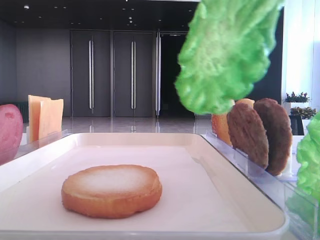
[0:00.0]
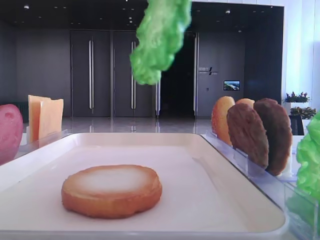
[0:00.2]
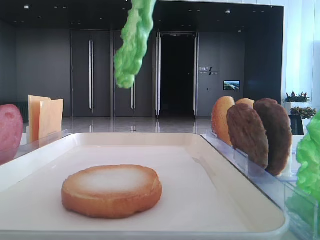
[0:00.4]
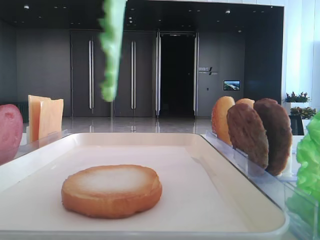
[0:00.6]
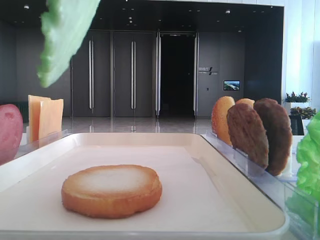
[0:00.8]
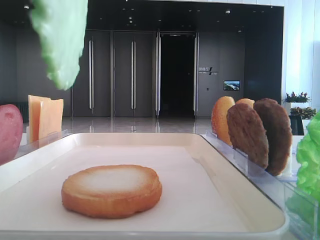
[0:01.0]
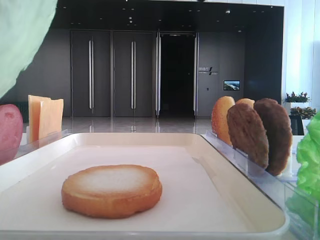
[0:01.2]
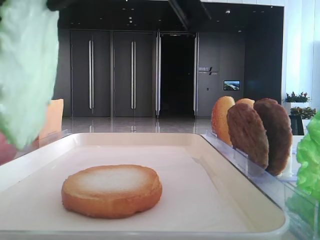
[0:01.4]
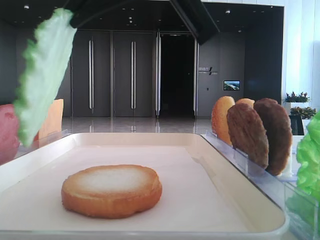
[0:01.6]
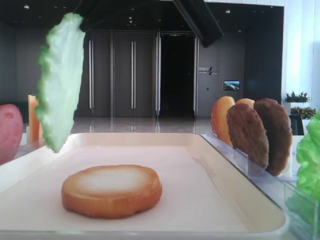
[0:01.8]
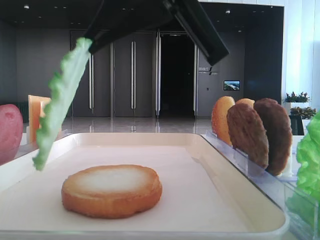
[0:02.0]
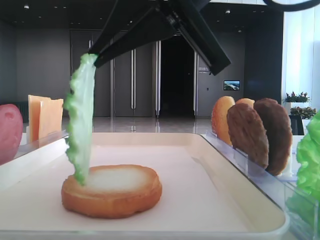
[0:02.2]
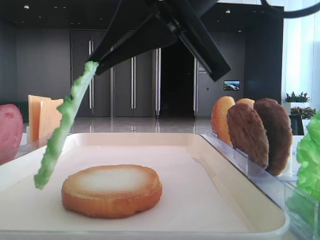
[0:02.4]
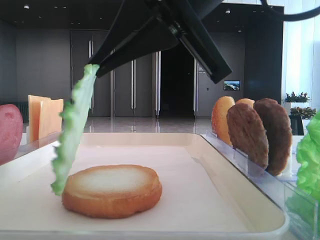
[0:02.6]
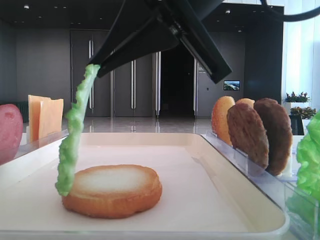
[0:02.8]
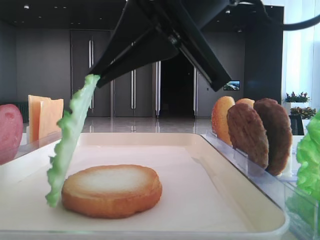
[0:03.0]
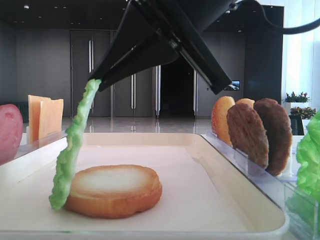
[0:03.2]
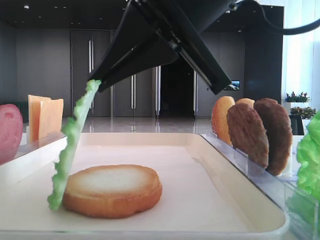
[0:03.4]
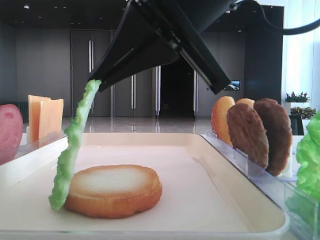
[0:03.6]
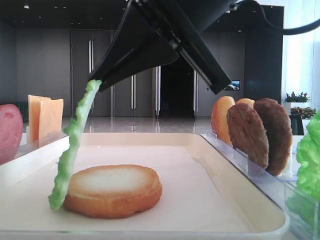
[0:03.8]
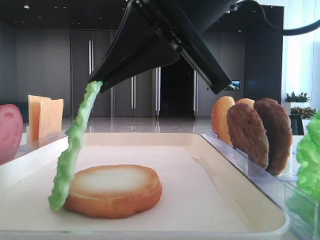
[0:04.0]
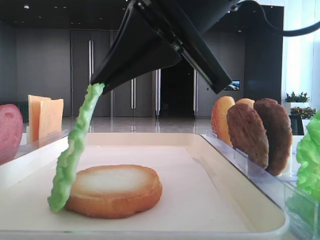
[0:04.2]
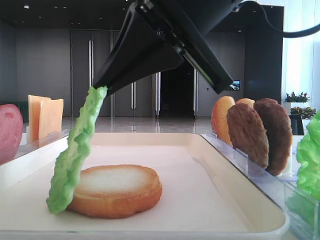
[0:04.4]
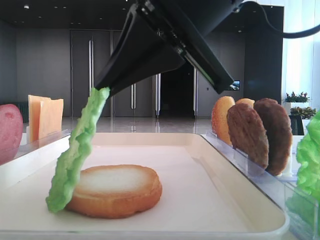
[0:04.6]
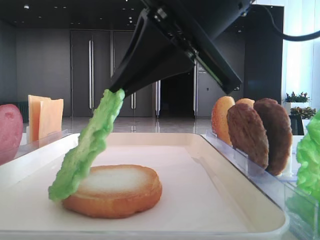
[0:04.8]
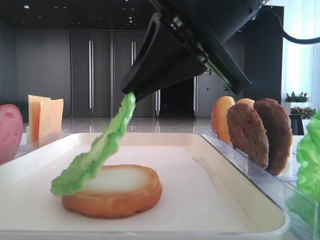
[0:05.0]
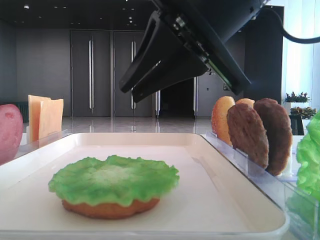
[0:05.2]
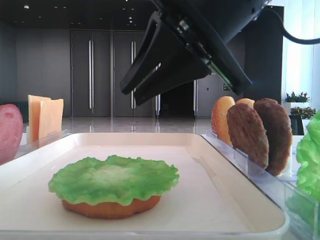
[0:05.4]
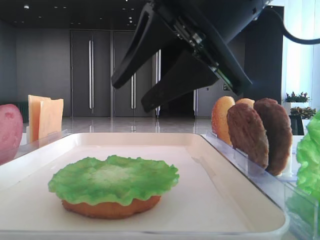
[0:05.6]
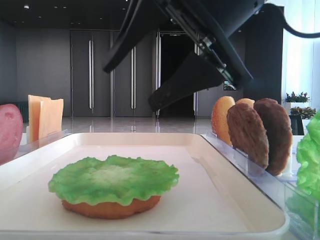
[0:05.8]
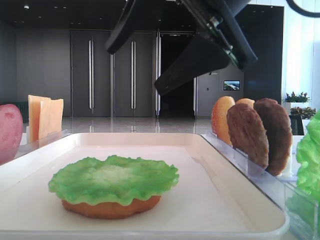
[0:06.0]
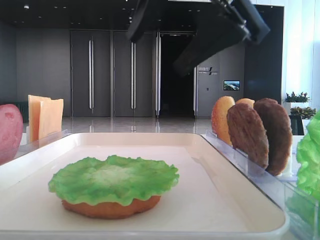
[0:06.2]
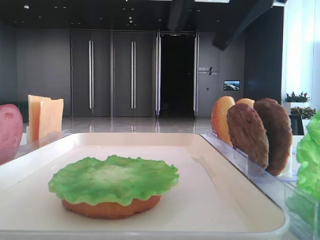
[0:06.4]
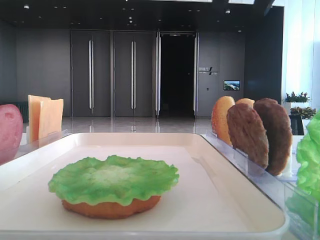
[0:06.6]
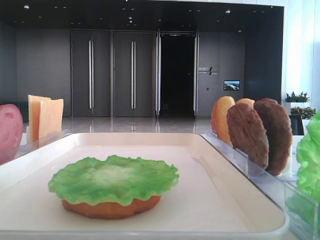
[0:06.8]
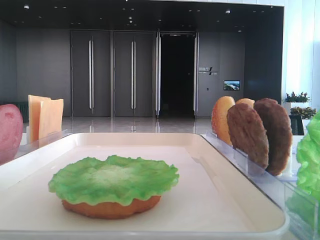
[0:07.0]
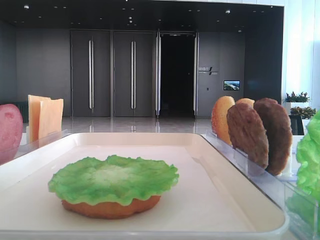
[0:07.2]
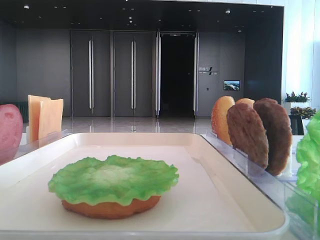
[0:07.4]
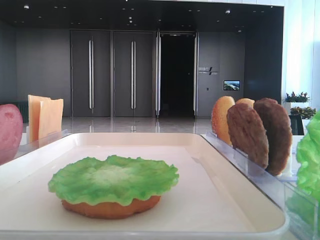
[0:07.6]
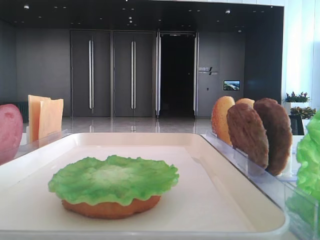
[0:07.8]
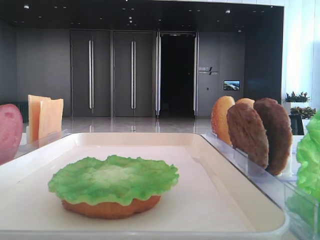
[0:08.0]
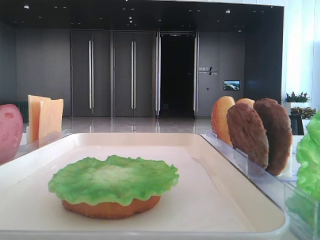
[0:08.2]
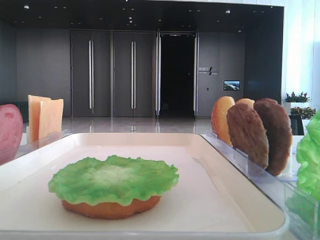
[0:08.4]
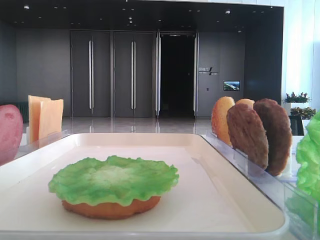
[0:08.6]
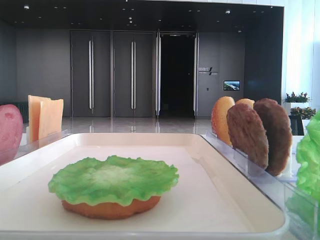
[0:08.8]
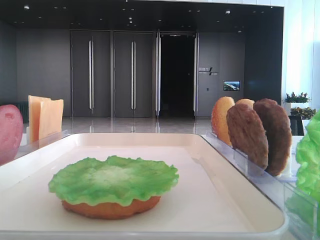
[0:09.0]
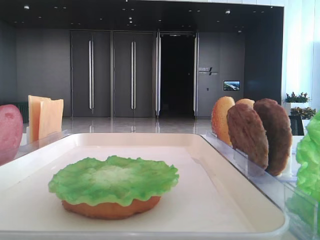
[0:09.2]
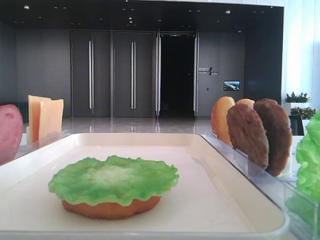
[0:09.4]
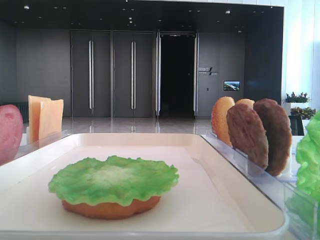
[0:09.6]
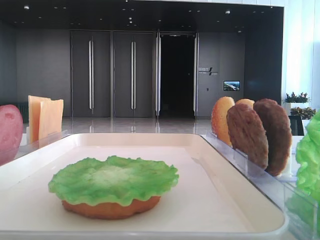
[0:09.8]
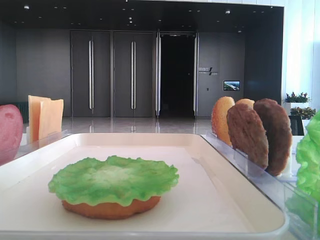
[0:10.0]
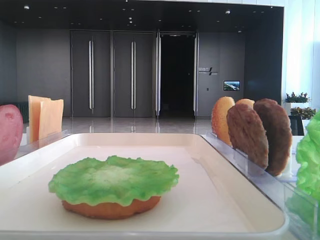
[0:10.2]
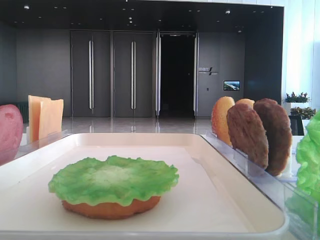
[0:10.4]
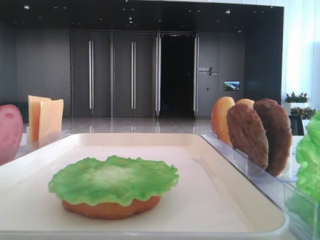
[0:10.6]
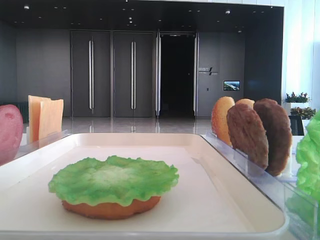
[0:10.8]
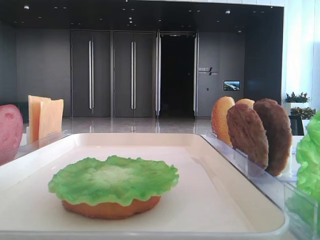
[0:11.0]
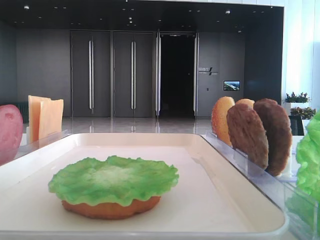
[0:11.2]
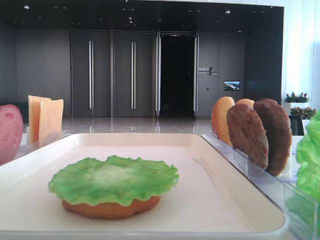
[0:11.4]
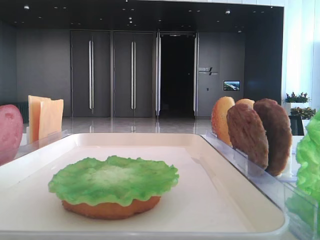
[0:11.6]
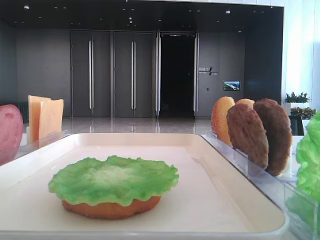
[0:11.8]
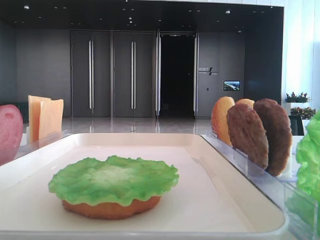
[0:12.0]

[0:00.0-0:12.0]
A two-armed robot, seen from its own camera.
Step, 0:00.0 to 0:05.0: Place the lettuce leaf on the bottom bread with the right hand.
0:00.0 to 0:01.6: The right gripper shifts about 10 cm downward and to the left.
0:01.6 to 0:04.4: The grippers make only small movements.
0:04.4 to 0:06.0: The right gripper opens up.
0:06.0 to 0:07.6: The right gripper is displaced to the right and upward by some 30 cm.
0:07.6 to 0:09.0: The right gripper heads backward, covering approximately 30 cm.
0:10.4 to 0:12.0: The two grippers keep their place.

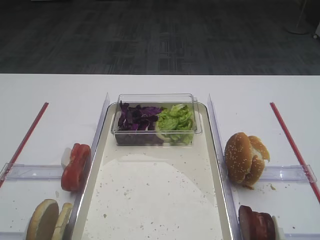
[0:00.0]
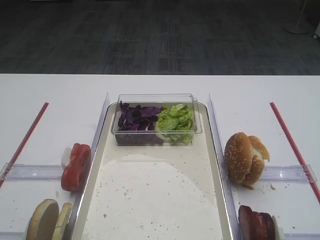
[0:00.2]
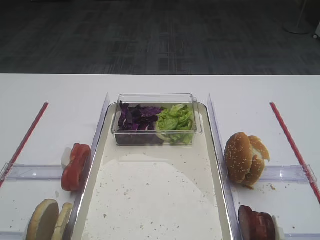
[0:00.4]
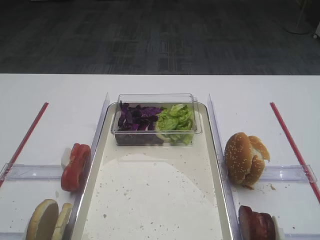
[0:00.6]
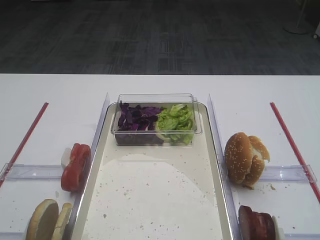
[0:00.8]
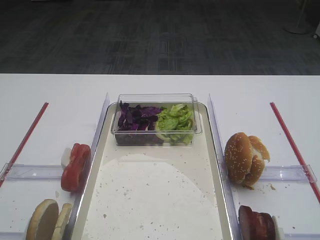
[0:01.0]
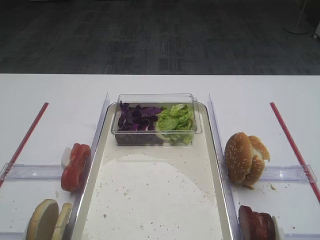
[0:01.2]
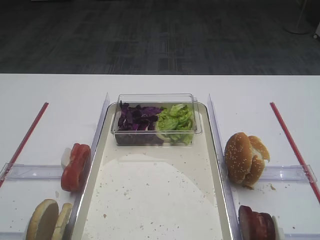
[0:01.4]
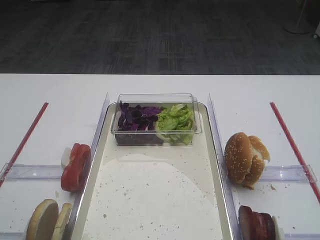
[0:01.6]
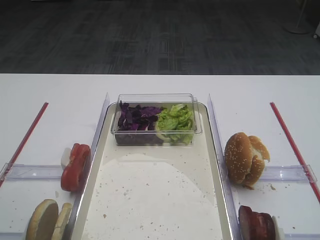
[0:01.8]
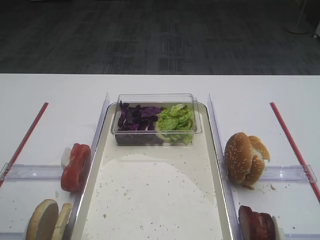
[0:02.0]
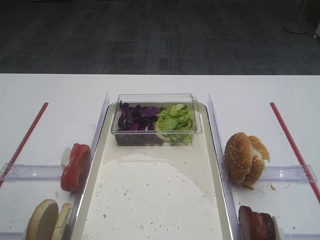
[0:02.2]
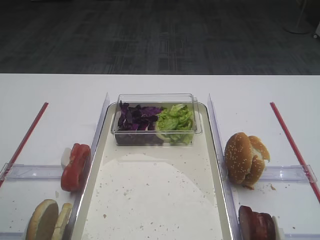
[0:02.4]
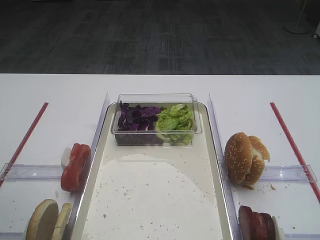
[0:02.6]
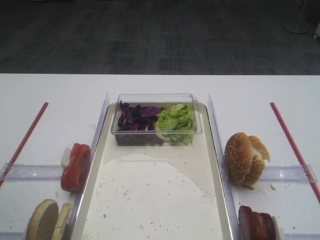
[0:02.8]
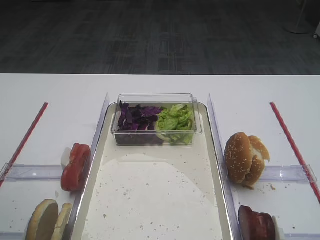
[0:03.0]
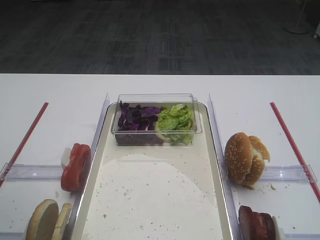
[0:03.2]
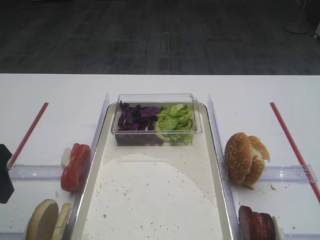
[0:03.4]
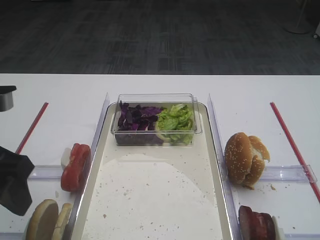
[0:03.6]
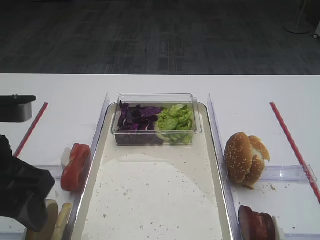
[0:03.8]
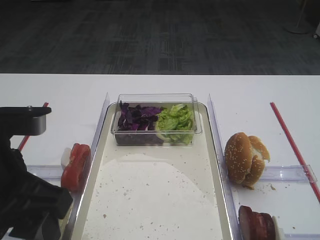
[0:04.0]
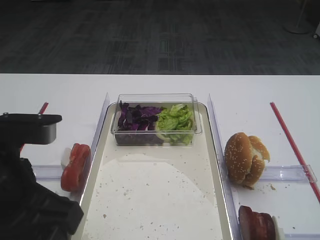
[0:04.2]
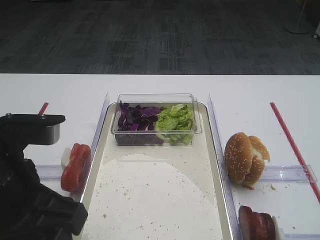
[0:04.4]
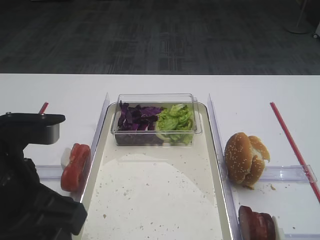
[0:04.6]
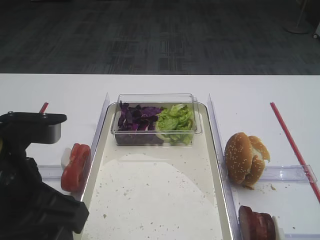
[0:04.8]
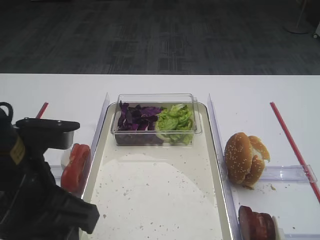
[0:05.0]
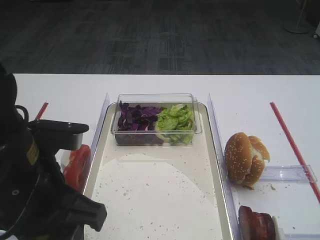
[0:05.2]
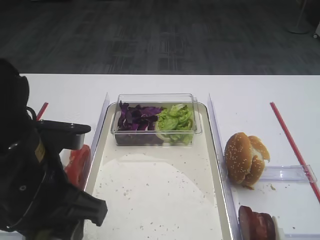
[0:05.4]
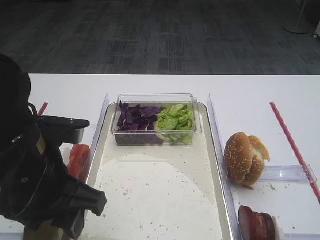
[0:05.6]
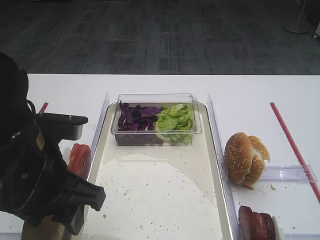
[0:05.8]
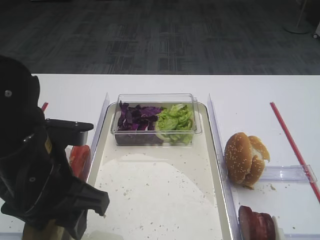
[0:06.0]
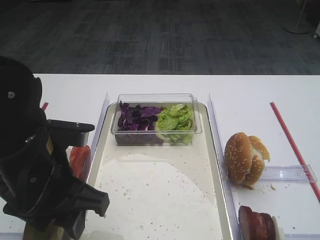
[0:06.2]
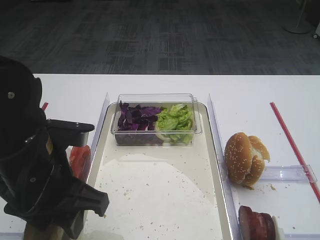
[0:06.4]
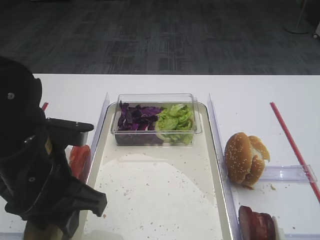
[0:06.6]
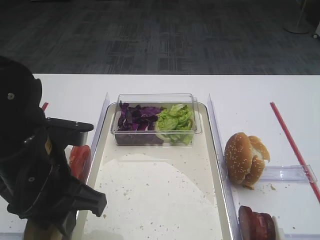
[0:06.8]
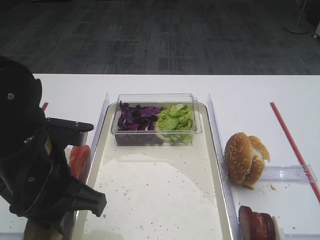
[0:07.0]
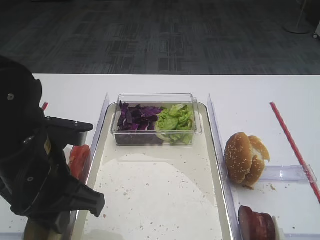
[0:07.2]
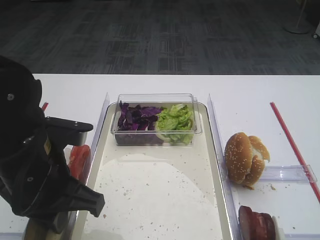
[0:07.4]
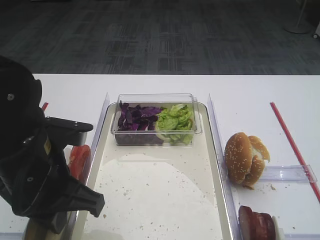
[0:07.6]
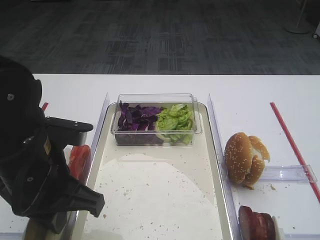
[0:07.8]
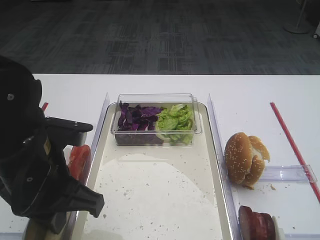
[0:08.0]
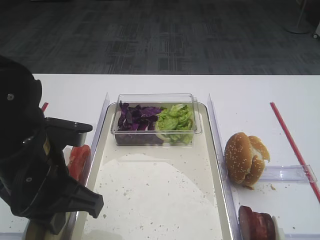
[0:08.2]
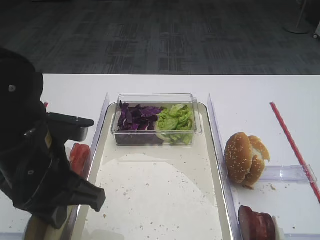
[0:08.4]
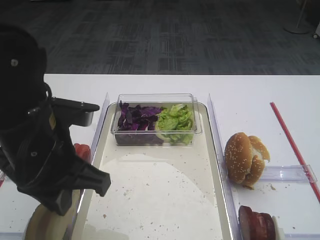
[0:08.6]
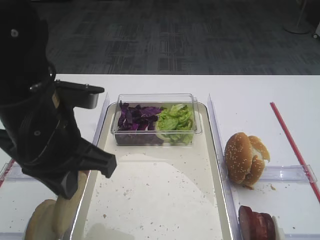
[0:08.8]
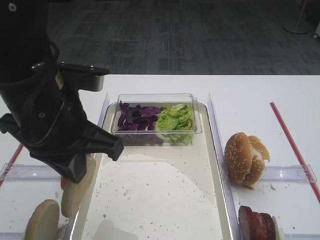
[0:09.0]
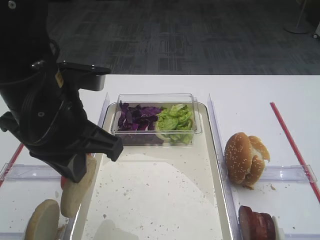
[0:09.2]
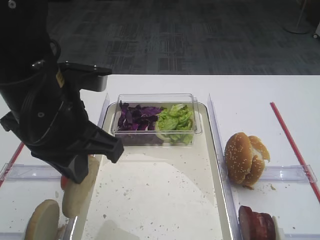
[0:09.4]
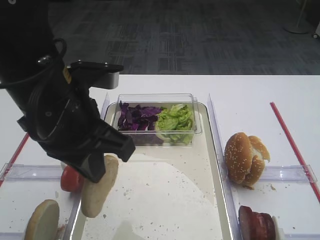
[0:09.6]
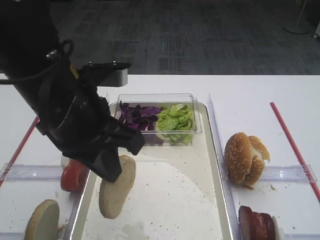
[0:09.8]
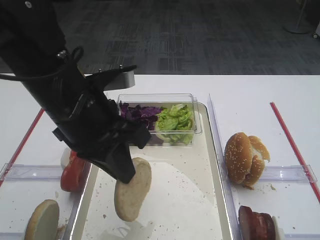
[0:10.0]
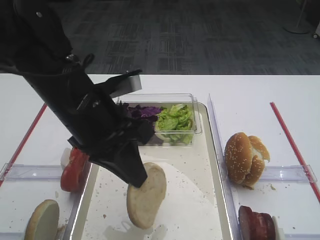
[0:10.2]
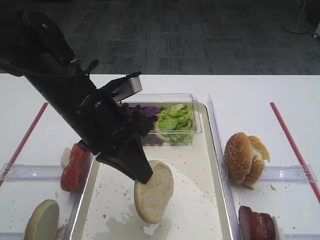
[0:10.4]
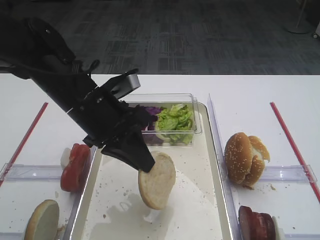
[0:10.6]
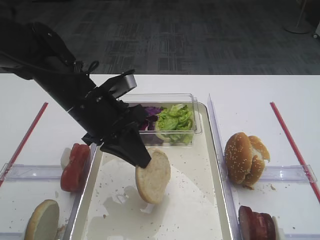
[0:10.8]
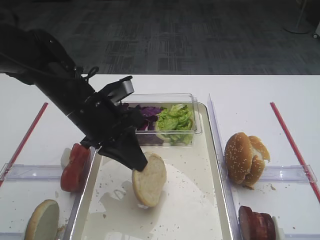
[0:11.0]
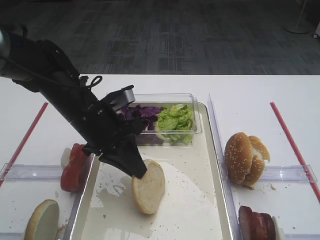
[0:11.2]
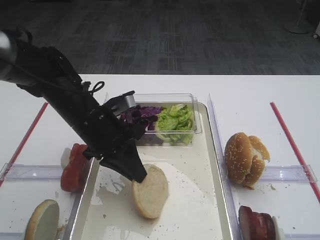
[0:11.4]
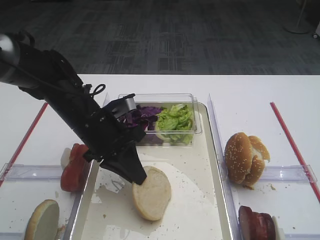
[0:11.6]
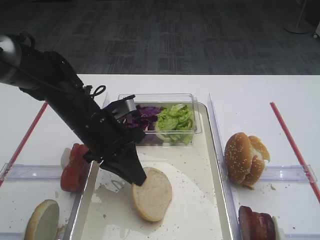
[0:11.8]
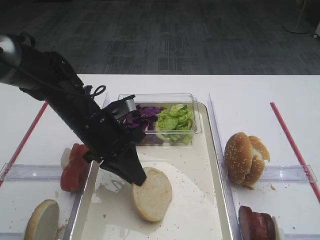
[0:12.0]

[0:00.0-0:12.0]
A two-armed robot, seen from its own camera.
Step, 0:00.0 to 0:08.8: Pick up the bread slice with the left gripper.
0:03.0 to 0:04.4: The left gripper travels to the right and backward by approximately 15 cm.
0:04.4 to 0:06.0: The left gripper is displaced downward and forward by some 5 cm.
0:06.0 to 0:07.6: The left gripper closes its fingers.
0:07.6 to 0:09.0: The left gripper travels upward by some 5 cm.
0:09.0 to 0:10.4: The left gripper moves roughly 5 cm.
0:10.4 to 0:12.0: The left gripper is displaced downward and forward by about 10 cm.
